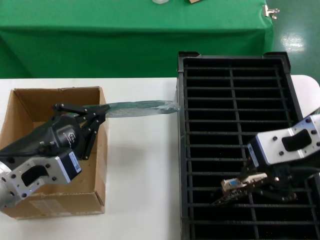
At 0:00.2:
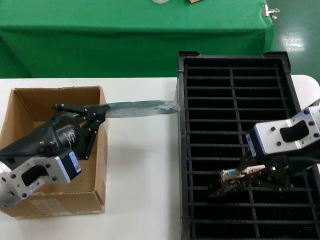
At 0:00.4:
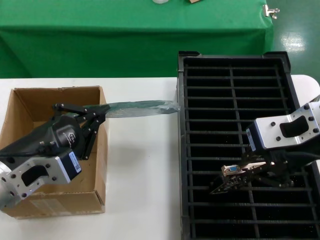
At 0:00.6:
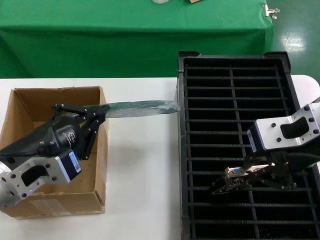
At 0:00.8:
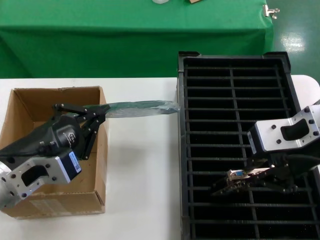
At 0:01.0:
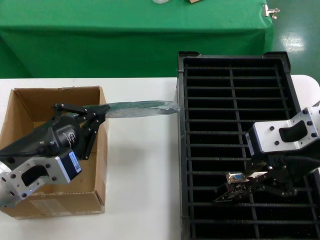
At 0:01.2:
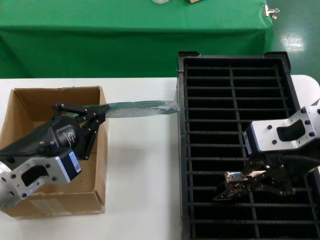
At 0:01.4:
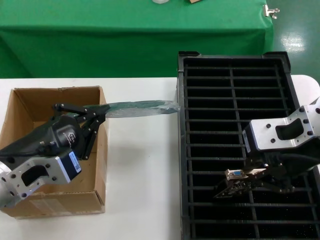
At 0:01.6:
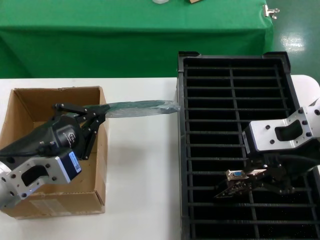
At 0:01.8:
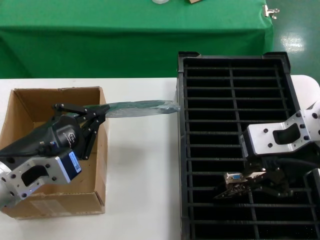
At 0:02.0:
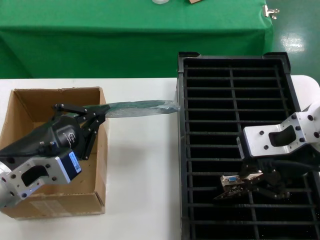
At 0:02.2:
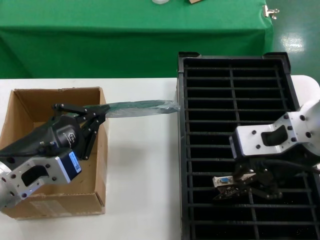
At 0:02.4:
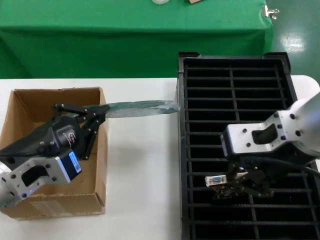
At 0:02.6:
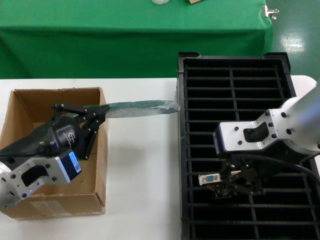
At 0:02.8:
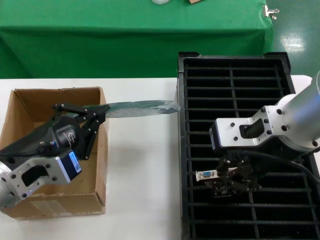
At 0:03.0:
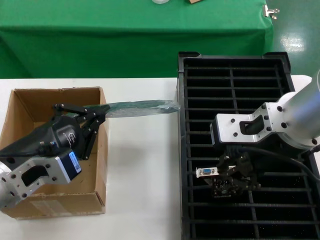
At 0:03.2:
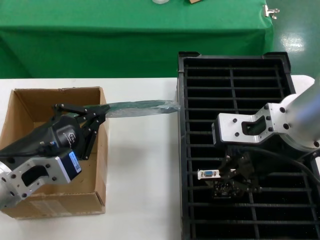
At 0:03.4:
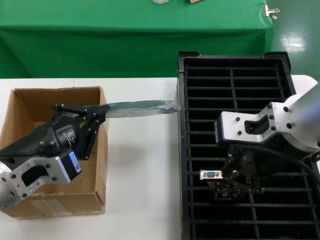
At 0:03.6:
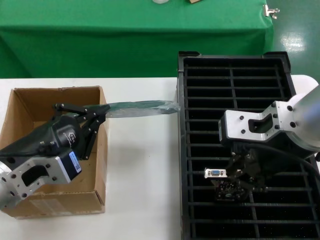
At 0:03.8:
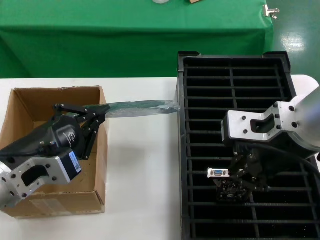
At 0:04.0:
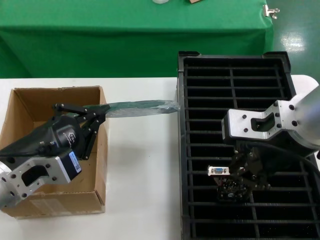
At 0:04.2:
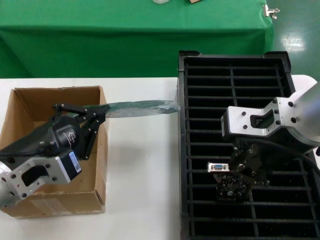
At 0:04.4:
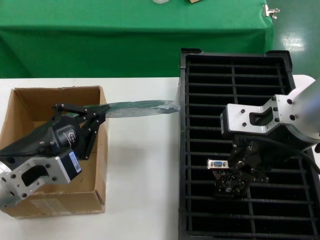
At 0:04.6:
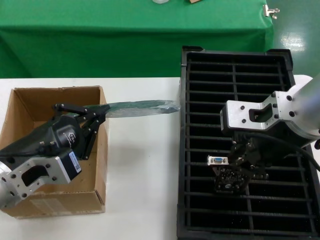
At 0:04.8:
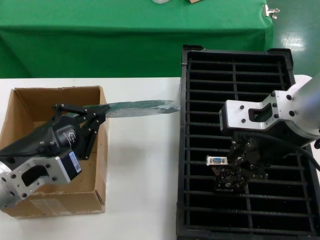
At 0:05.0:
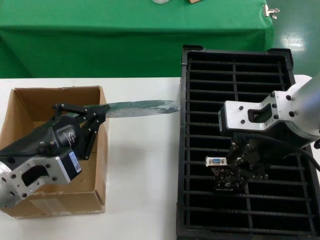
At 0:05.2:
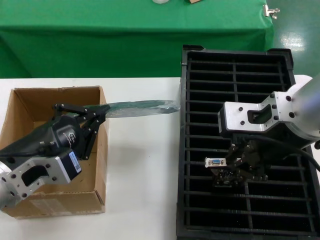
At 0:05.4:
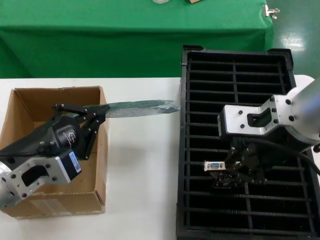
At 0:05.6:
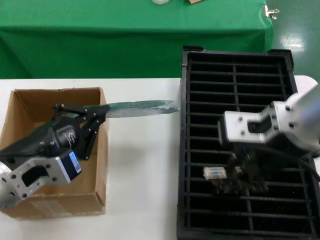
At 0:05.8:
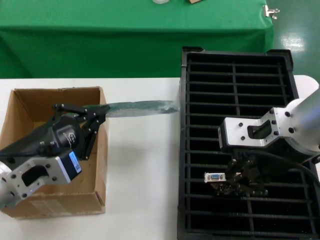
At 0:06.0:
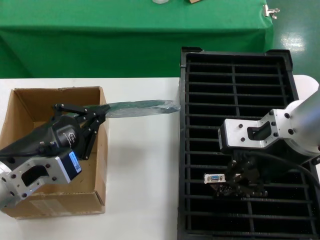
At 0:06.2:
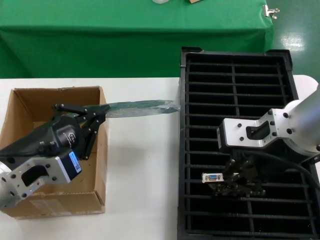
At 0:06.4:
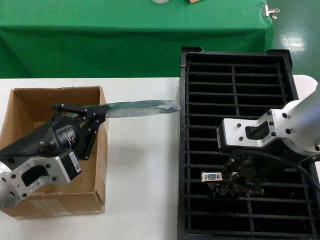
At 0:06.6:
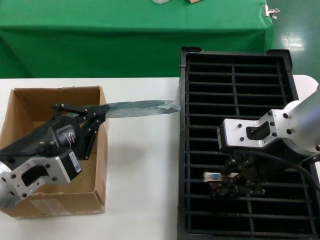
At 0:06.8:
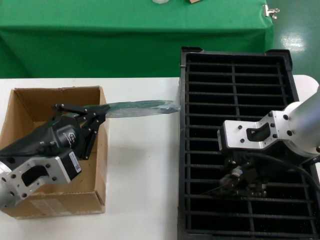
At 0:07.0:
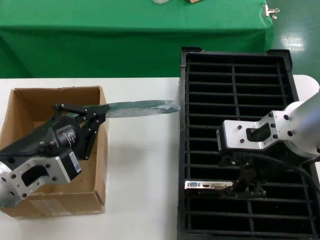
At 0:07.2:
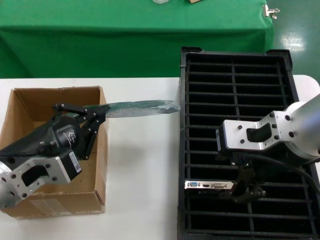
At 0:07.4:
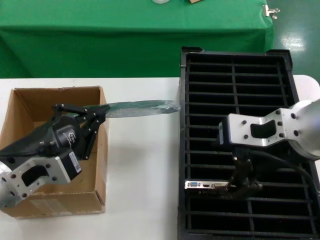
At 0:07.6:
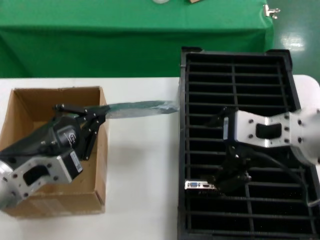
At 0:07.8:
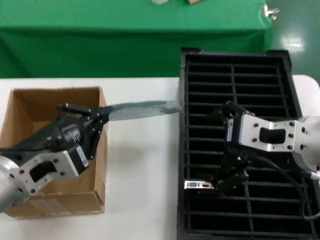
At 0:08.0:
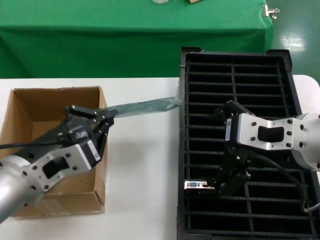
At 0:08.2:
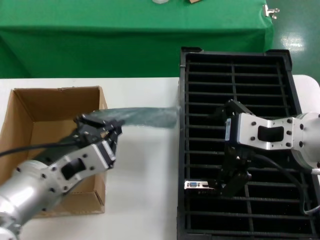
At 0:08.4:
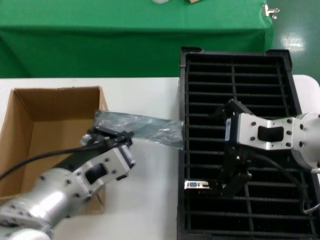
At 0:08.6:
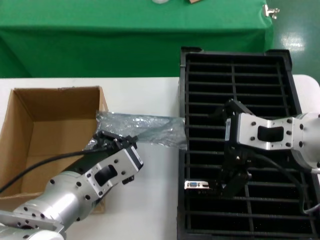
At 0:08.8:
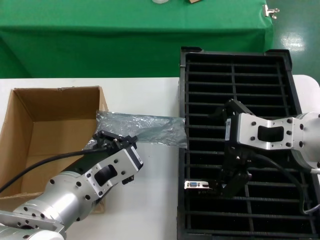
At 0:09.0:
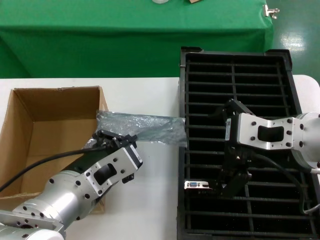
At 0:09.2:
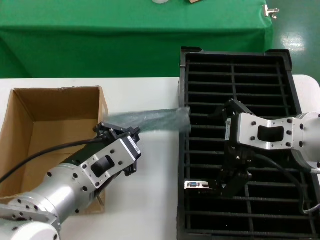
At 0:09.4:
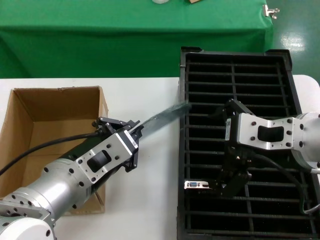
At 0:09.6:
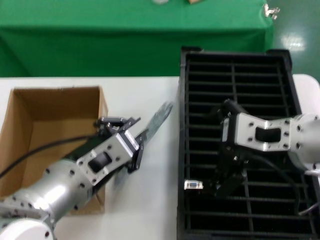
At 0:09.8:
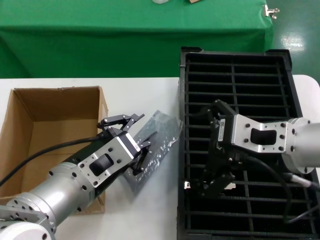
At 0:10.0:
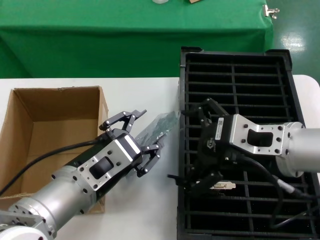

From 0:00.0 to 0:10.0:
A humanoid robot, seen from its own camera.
Task of the whole recording: take out graphics card from box remove packaging put into black container.
Step, from 0:00.0 to 0:07.0: Place the hard disk in the hard disk enclosure.
Step, from 0:07.2 to 0:09.8: Place the down the bag.
From 0:00.0 to 0:04.2: The hands make only small movements.
From 0:04.2 to 0:05.8: Both hands stay about where they are.
From 0:05.8 to 0:07.2: Both hands stay put.
From 0:07.2 to 0:08.6: The left hand is displaced to the right by some 10 cm.
From 0:08.6 to 0:10.0: The hands stay close to where they were, moving slightly.

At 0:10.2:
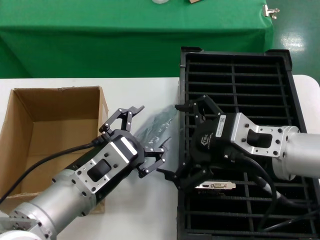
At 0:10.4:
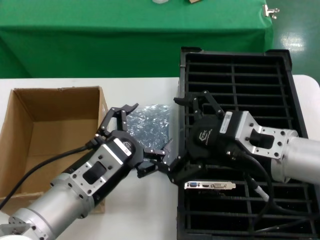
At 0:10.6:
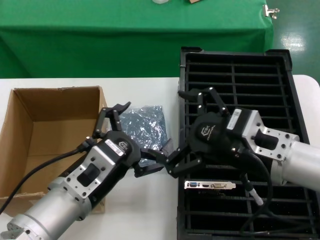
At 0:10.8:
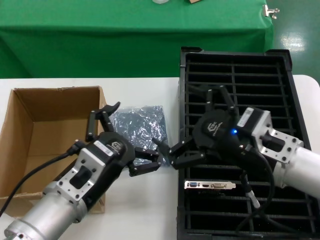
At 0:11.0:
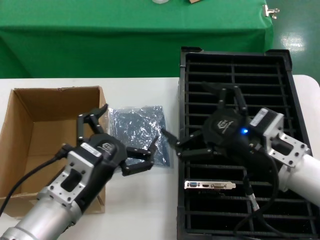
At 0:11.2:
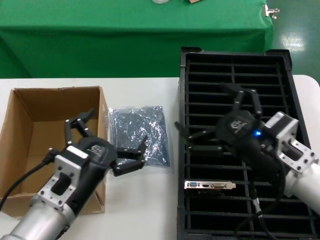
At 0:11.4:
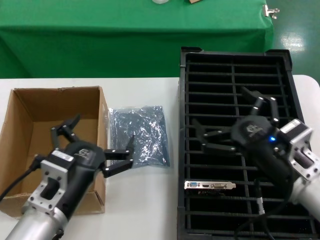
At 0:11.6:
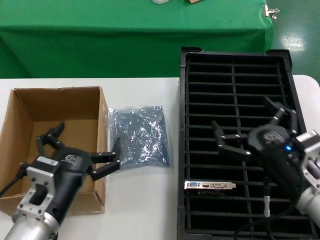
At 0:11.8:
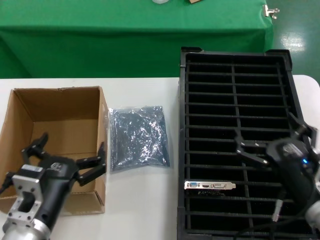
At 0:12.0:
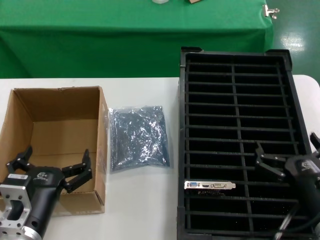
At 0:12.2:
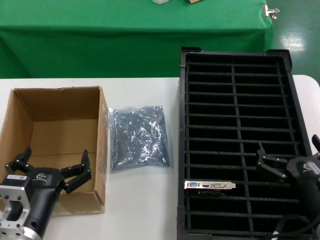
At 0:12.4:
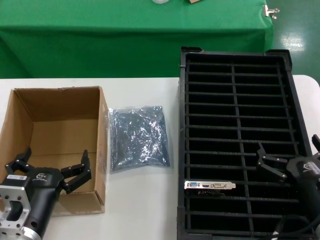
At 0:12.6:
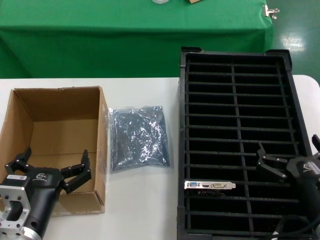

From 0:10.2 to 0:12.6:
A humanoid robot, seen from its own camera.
Task of the whole recording: take out graphics card from box remove packaging put into black container.
From 0:10.2 to 0:11.4: The right hand travels downward by roughly 10 cm. Meanwhile the left hand travels downward by some 5 cm.
From 0:11.4 to 0:12.6: The left hand changes place by approximately 5 cm, while the right hand goes about 10 cm downward.
